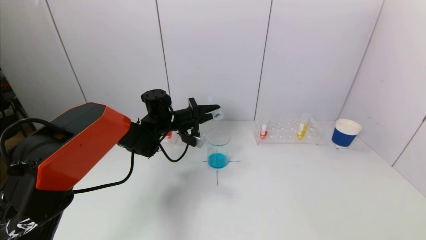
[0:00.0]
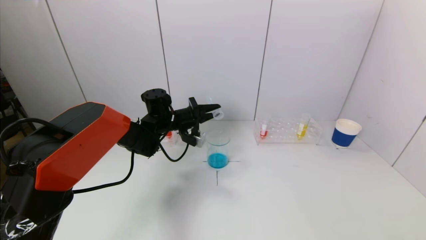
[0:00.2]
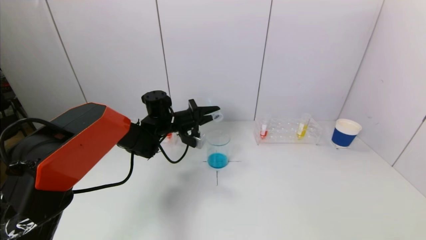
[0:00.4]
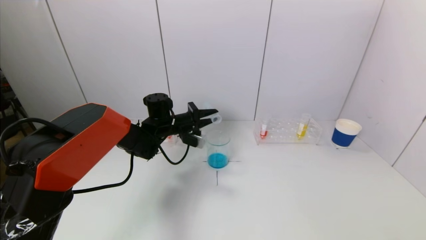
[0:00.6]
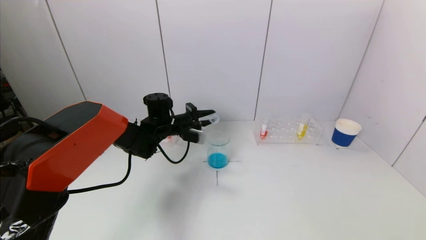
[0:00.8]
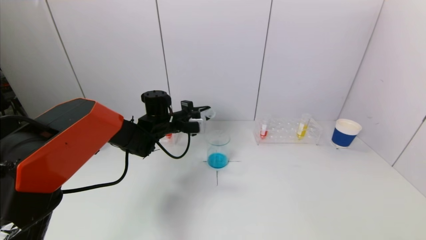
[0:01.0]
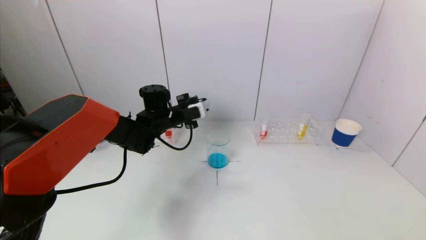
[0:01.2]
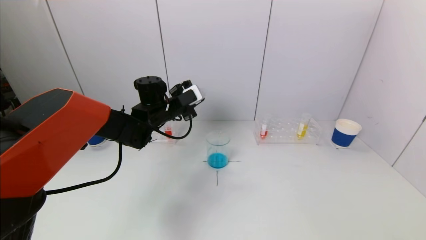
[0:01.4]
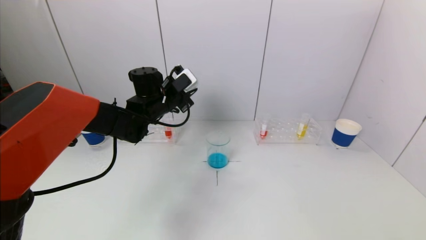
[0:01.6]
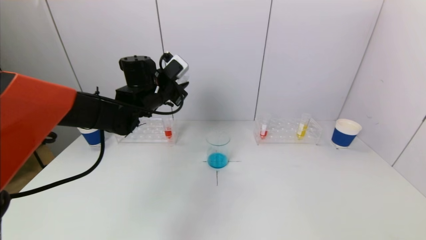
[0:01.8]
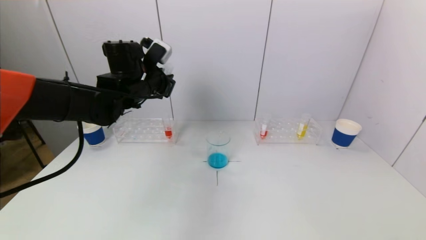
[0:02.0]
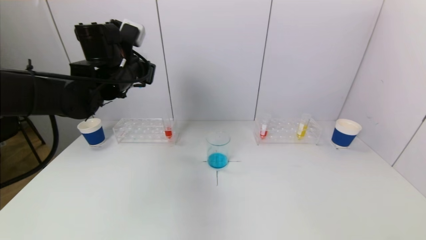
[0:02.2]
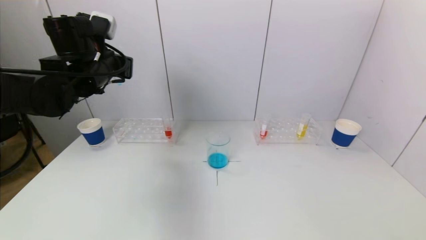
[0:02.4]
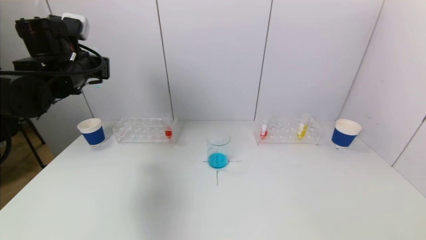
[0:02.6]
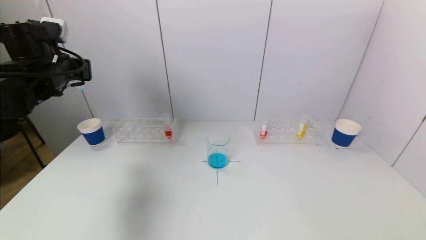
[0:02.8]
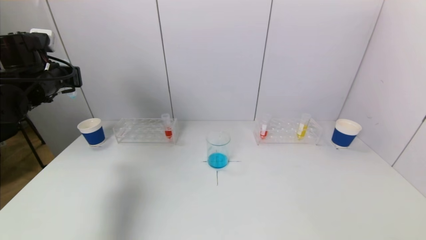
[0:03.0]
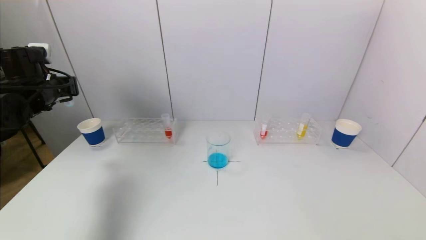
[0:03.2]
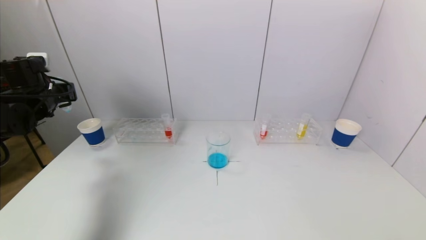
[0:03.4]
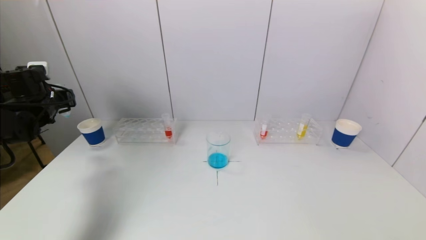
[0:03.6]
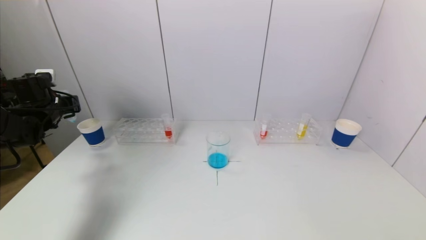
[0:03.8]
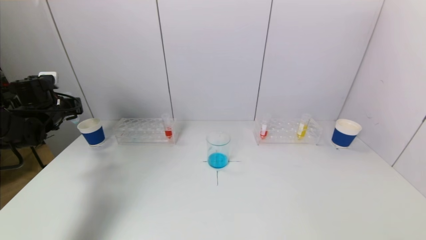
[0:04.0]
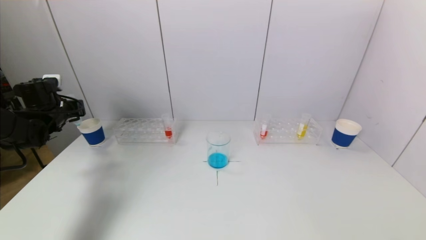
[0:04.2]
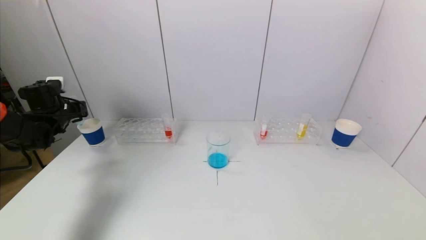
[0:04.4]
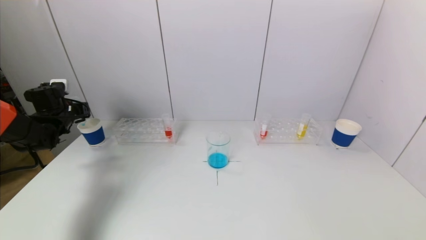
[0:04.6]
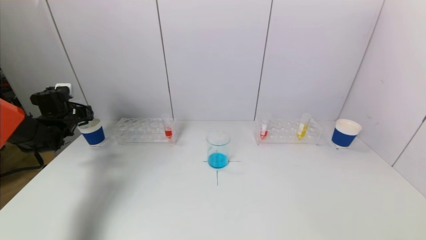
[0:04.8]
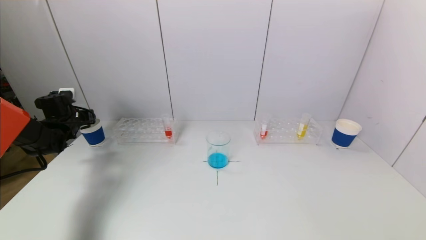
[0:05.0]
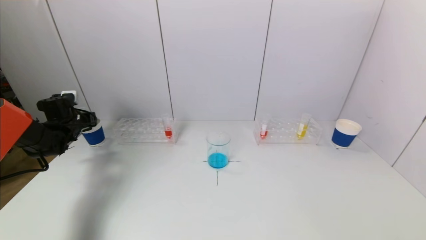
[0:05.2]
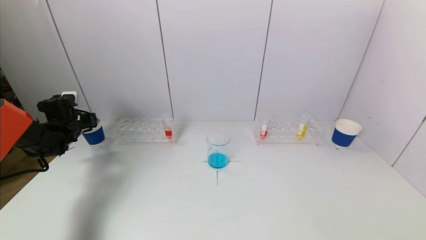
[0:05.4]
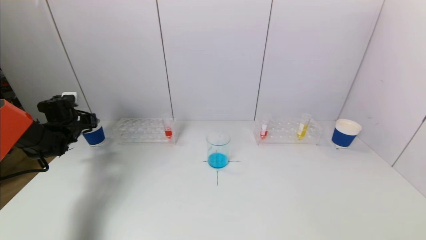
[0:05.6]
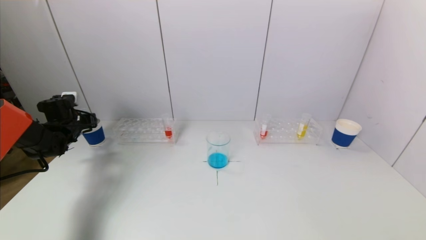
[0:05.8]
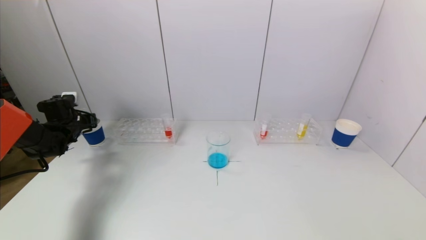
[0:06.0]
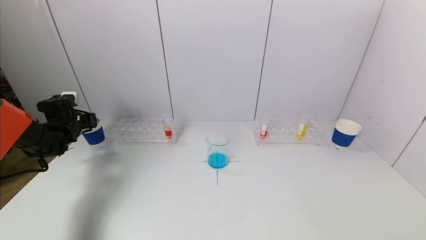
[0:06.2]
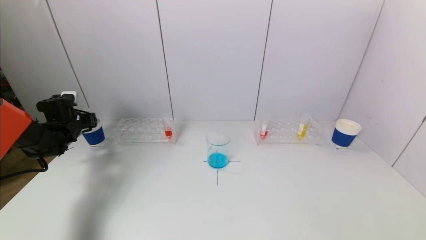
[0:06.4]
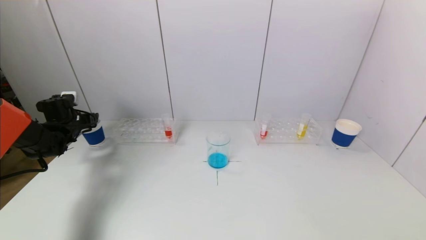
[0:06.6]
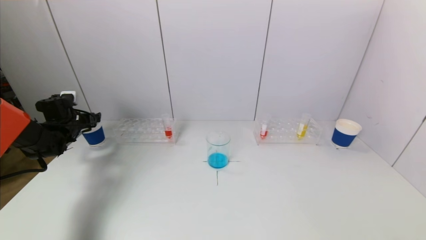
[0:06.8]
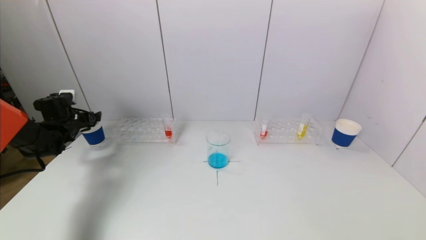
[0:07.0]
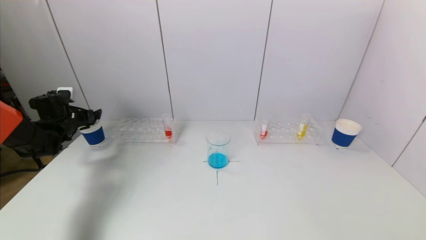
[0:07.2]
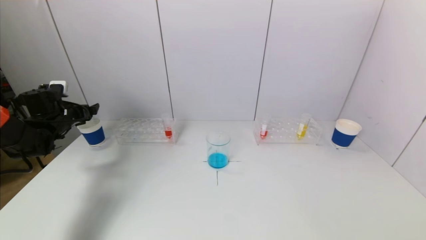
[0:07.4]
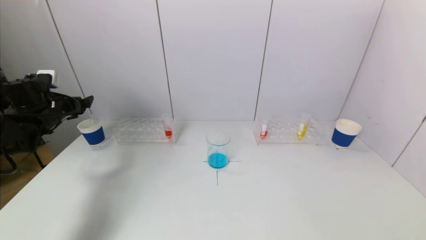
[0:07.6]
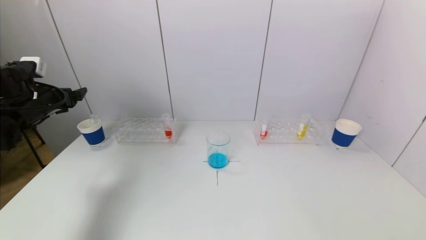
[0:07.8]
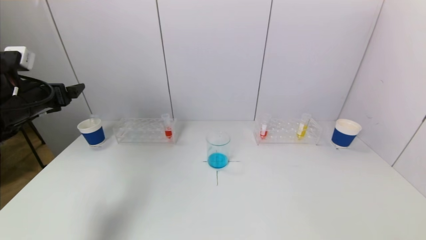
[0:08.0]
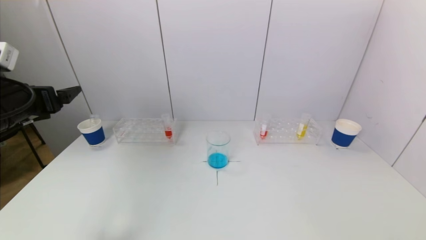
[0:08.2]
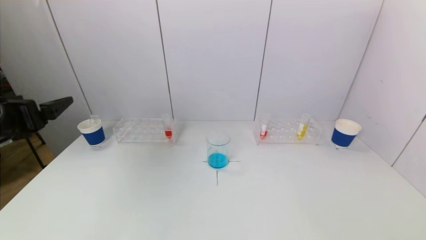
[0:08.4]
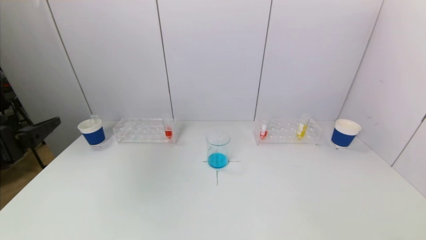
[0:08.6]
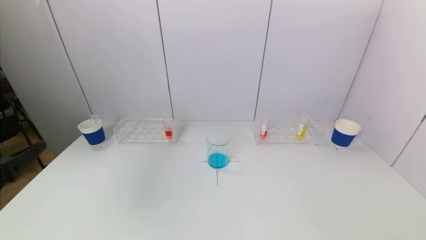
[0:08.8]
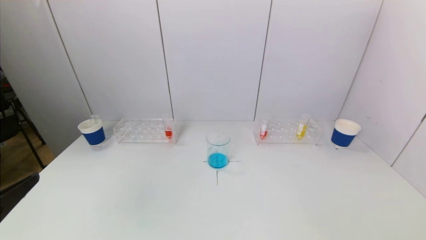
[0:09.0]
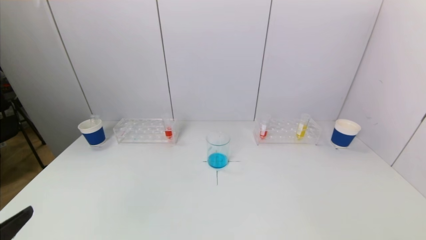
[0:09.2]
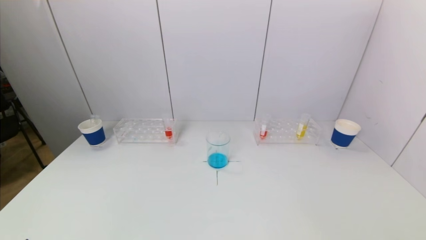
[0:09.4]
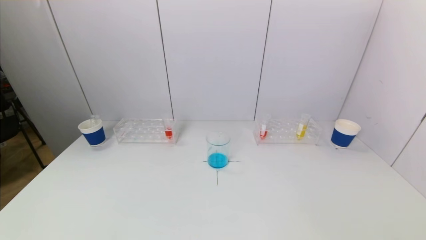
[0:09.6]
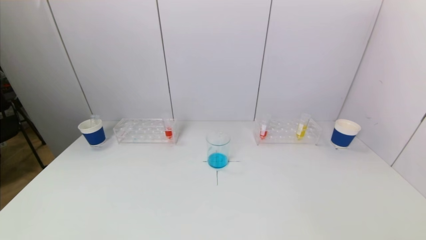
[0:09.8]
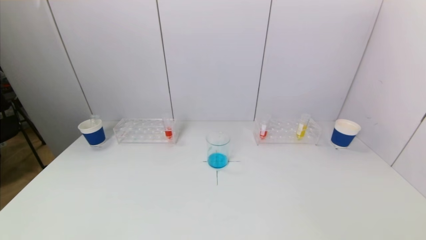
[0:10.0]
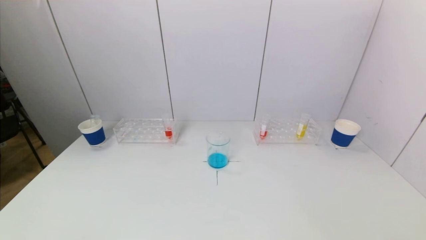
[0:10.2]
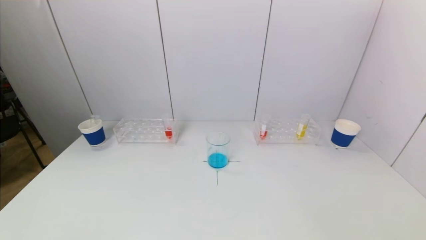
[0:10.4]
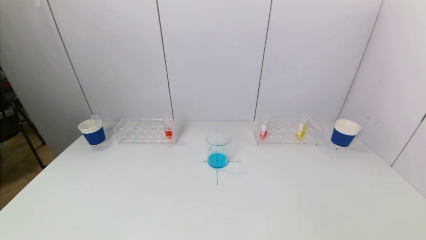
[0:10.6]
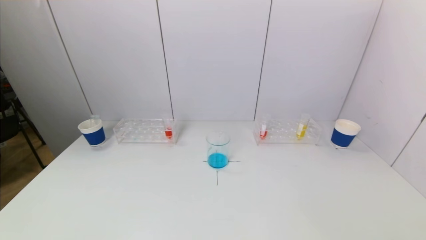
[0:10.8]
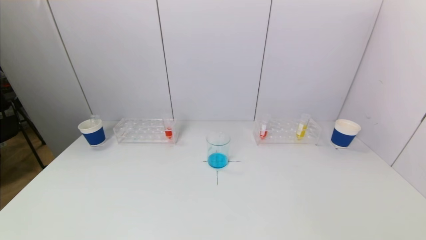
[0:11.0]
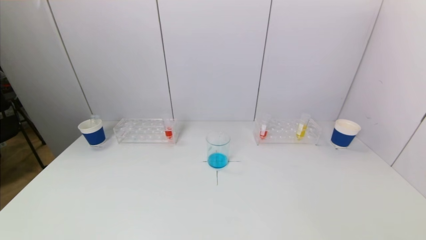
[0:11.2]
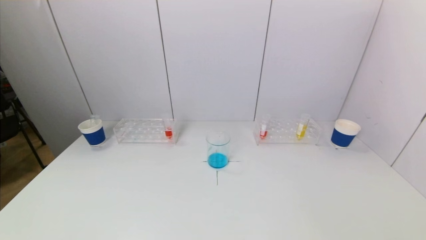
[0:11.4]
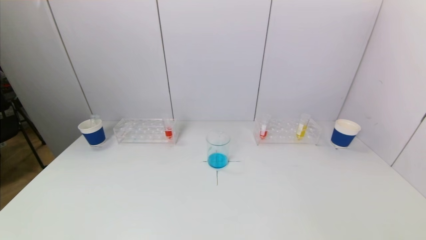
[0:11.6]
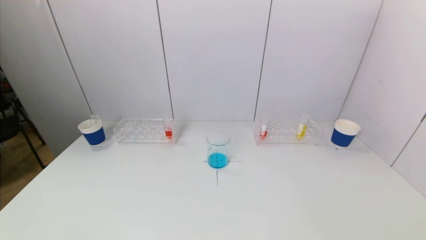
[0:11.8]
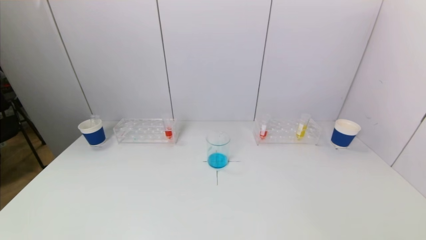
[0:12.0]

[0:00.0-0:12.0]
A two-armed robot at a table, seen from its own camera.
Task of the whole recording: pick up a test tube with pigment on left test tube rack and a test tube with pigment on right test tube rack by grippers and pour them into the beaker.
Step, 0:00.6 to 0:06.8: Place the test tube into the paper cup with the left gripper.
0:00.0 to 0:01.6: The left gripper goes some 5 cm upward.
0:01.6 to 0:03.0: The left gripper shifts approximately 20 cm to the left.
0:03.0 to 0:04.4: The left gripper shifts some 15 cm downward, to the left and forward.
0:04.4 to 0:06.0: The left gripper goes roughly 5 cm downward.
0:06.0 to 0:07.6: The left gripper is displaced upward and backward by approximately 10 cm, and opens up.
0:07.6 to 0:09.0: The left gripper heads backward, covering some 35 cm.
0:09.0 to 0:10.4: The left gripper heads downward and backward, covering some 15 cm.

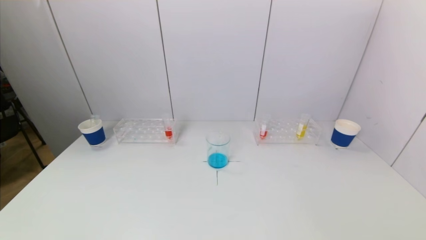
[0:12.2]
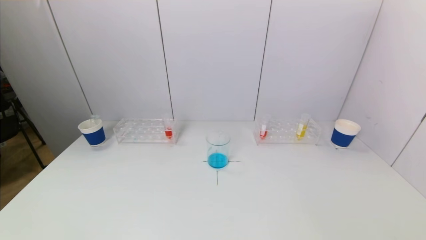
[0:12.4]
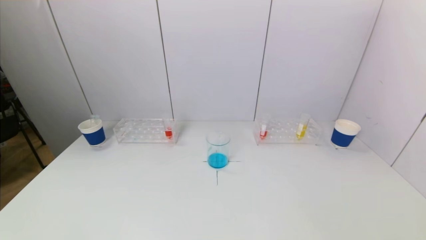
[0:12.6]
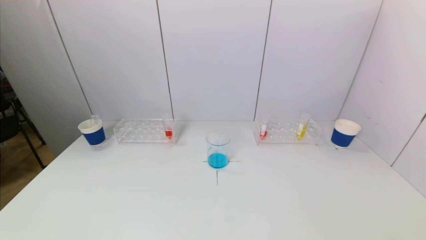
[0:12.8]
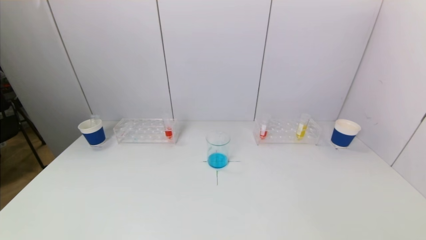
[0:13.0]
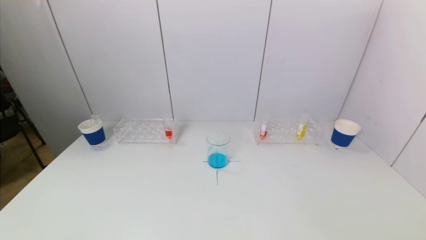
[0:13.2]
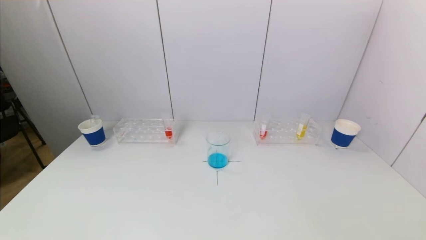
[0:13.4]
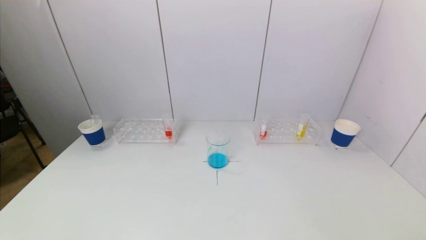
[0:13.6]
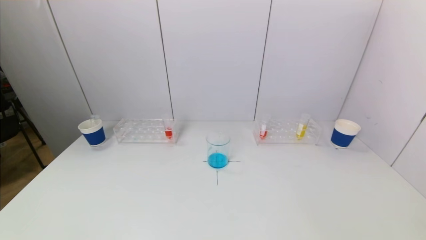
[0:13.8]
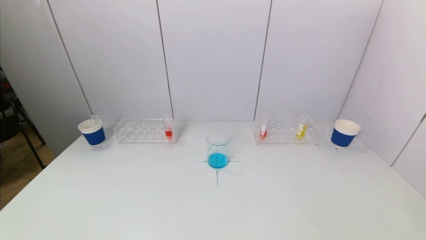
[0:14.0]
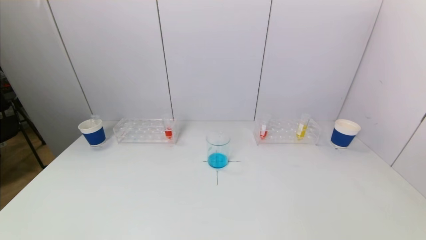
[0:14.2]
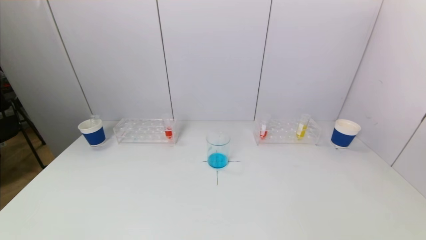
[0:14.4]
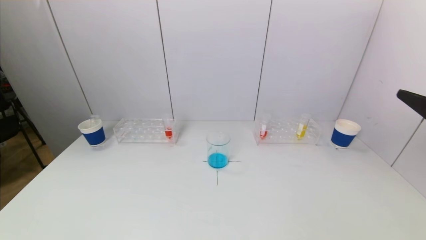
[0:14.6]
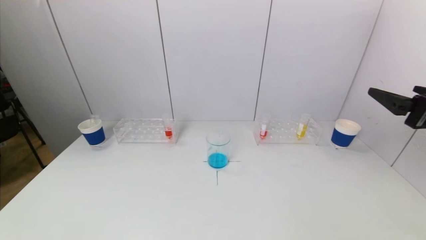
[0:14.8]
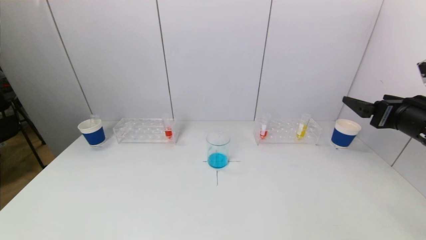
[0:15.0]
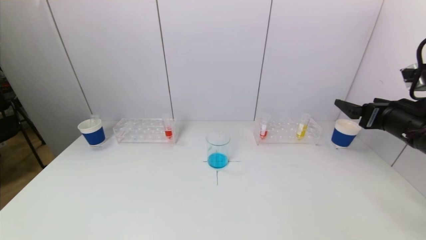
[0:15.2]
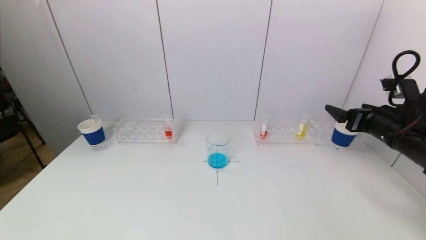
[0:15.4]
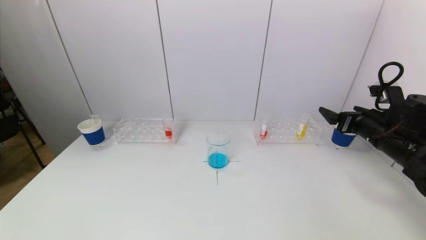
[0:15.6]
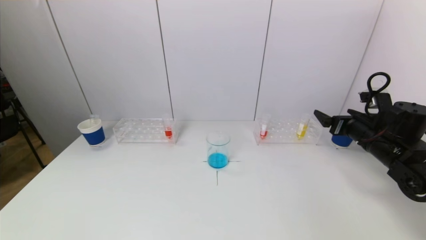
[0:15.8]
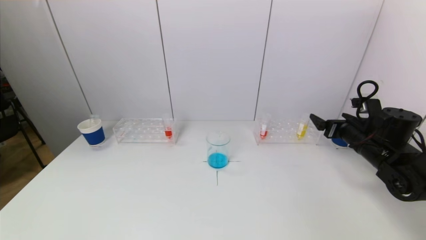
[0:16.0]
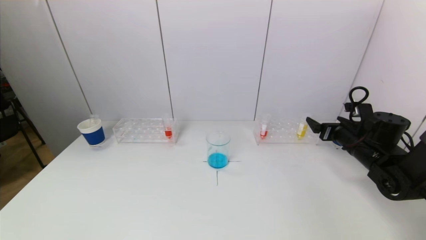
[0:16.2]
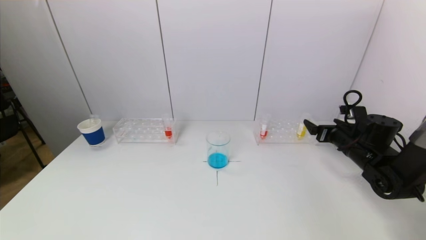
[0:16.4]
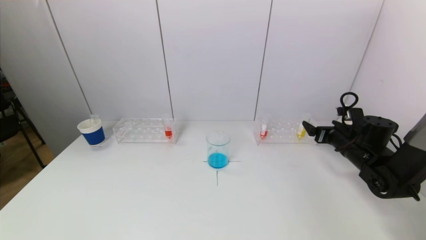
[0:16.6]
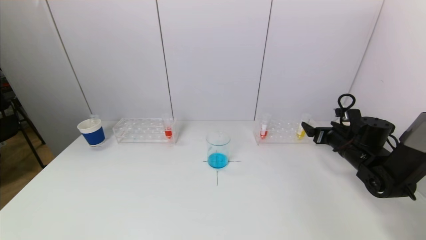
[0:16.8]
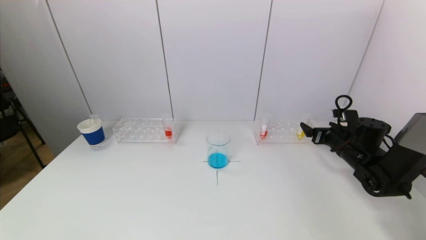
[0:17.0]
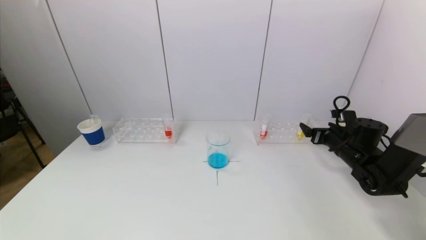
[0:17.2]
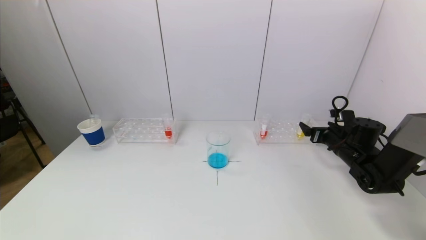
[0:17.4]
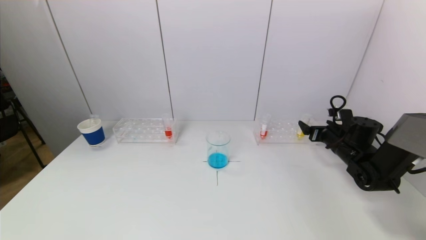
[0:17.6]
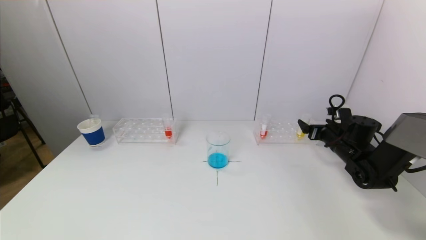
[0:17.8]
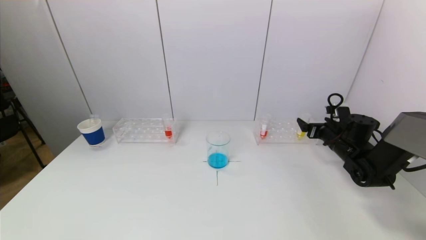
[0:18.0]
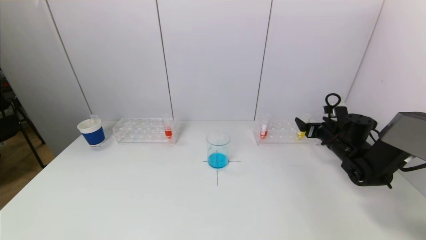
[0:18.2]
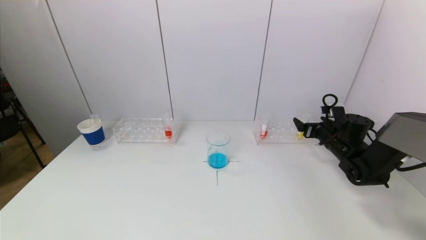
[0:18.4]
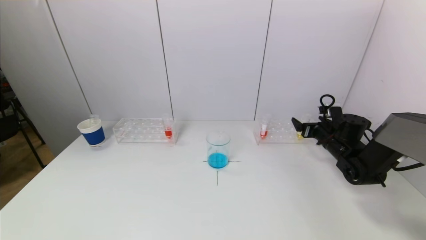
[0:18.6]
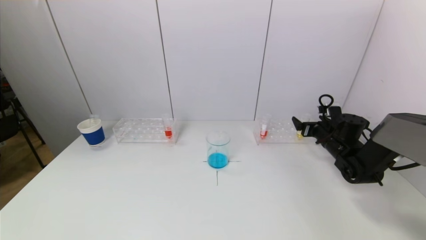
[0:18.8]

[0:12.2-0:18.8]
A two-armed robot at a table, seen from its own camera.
Task of the whole recording: pick up a test tube with pigment on left test tube rack and a test tube with pigment on right test tube rack by grippers and pour them into the beaker.
0:13.8 to 0:15.4: The right gripper is displaced forward by roughly 30 cm.
0:15.4 to 0:17.2: The right gripper is displaced downward and forward by approximately 15 cm.
0:17.2 to 0:18.8: The grippers move only a little.
